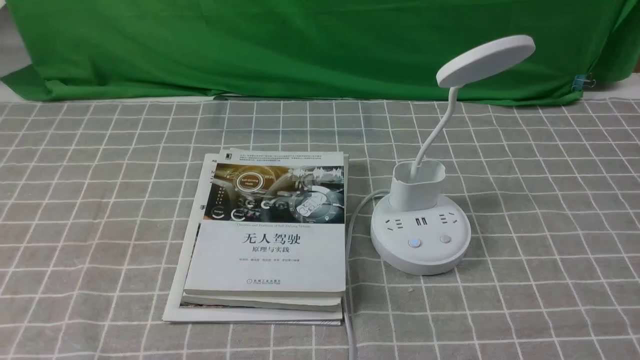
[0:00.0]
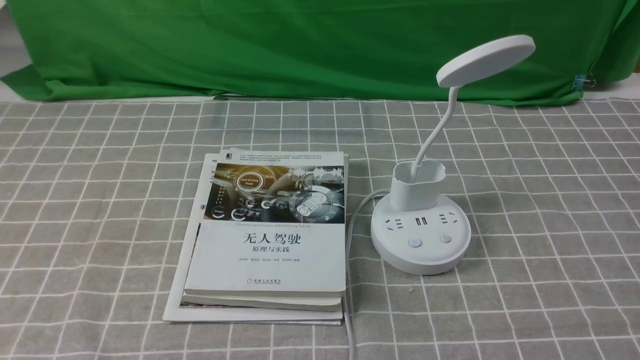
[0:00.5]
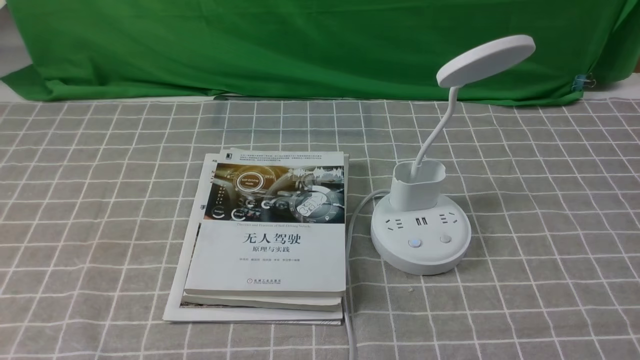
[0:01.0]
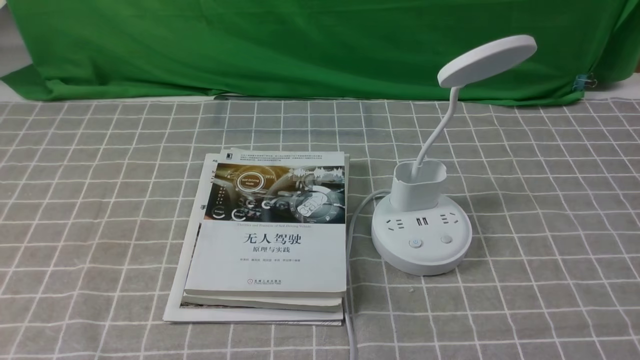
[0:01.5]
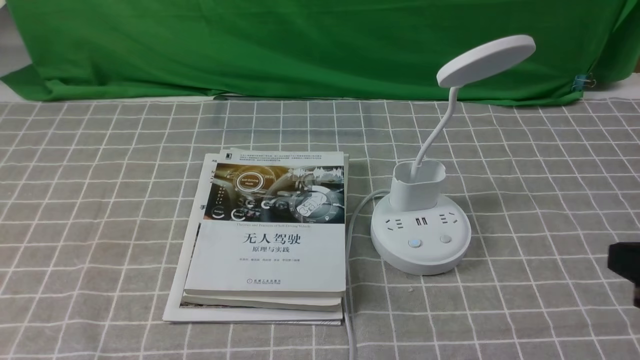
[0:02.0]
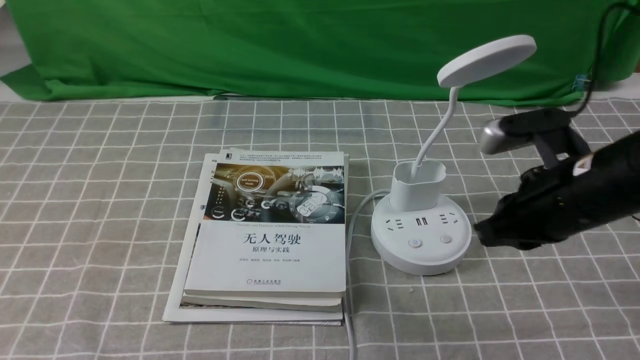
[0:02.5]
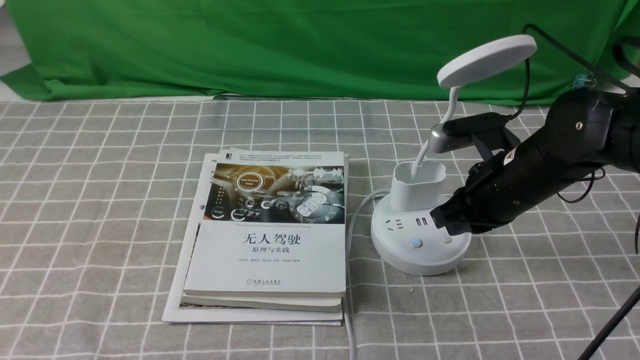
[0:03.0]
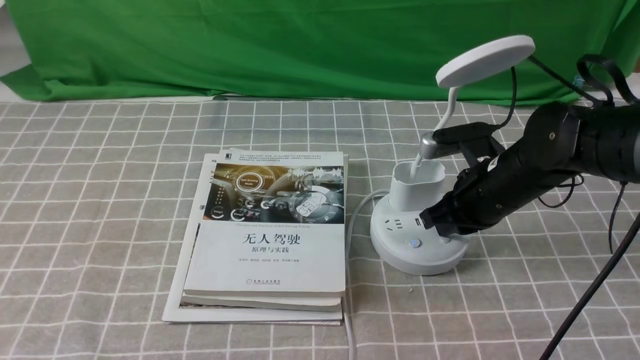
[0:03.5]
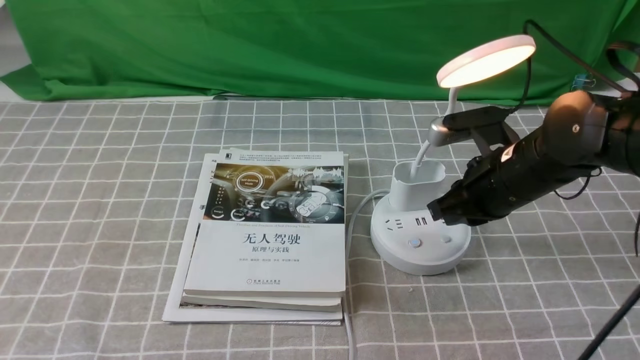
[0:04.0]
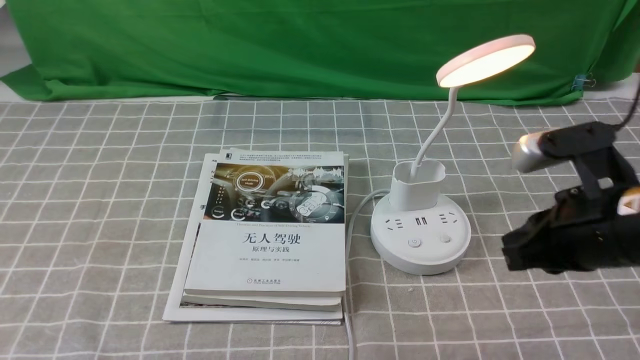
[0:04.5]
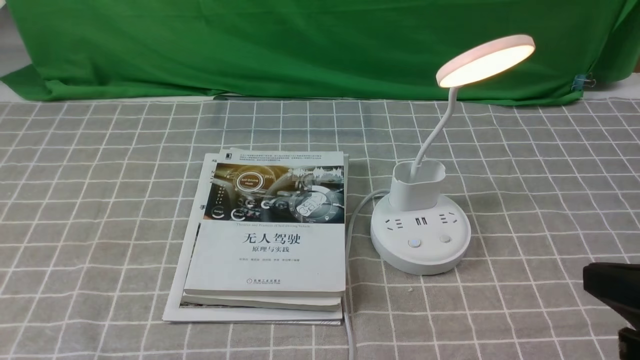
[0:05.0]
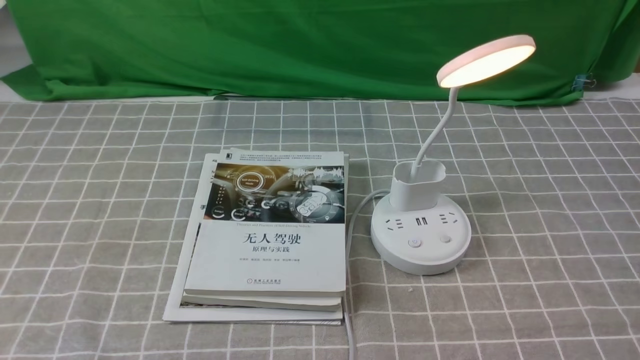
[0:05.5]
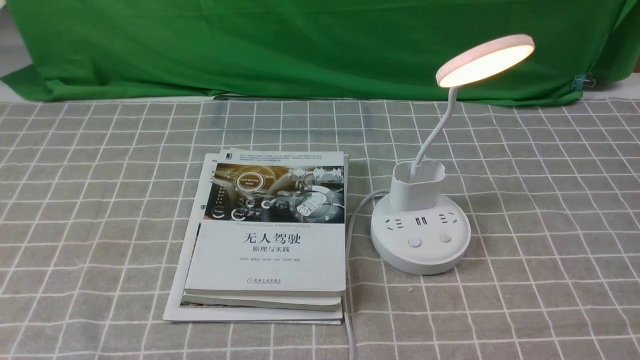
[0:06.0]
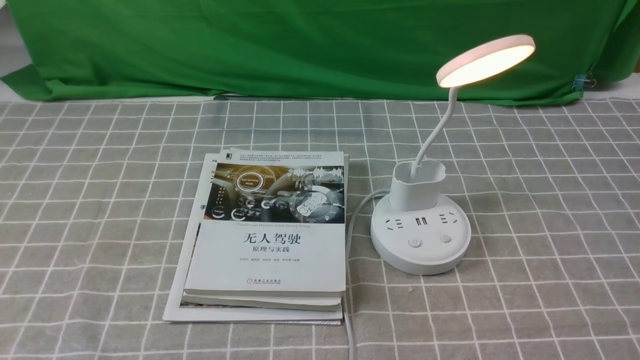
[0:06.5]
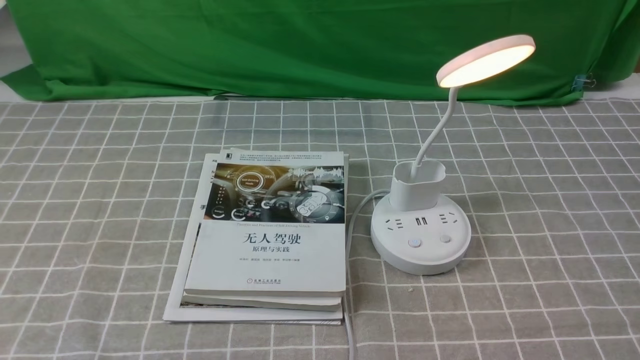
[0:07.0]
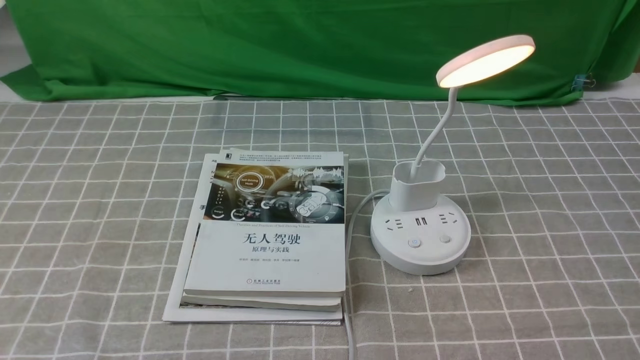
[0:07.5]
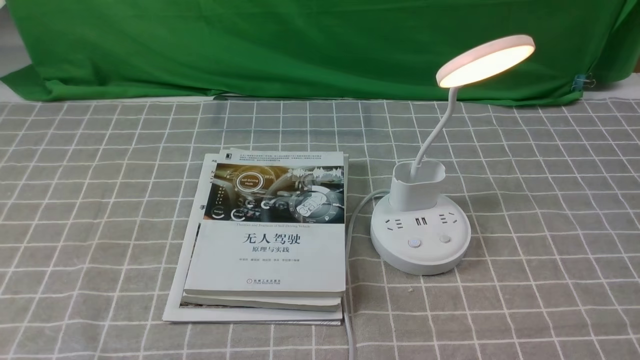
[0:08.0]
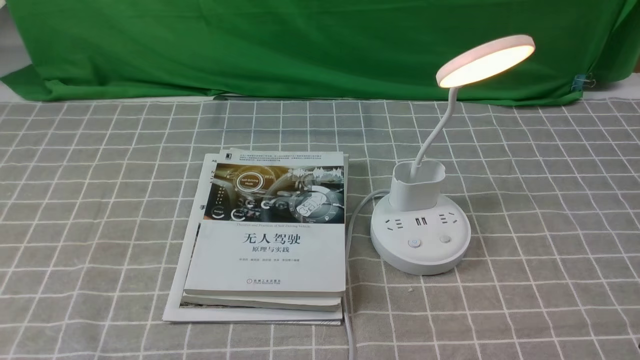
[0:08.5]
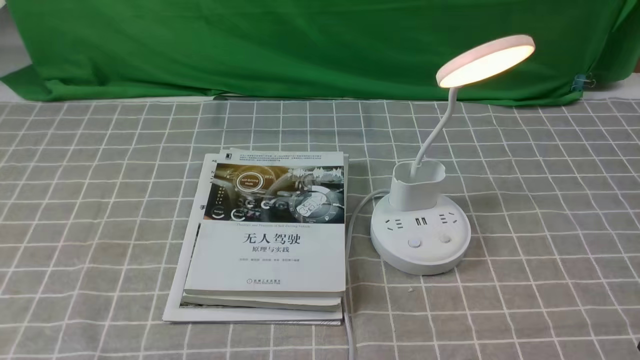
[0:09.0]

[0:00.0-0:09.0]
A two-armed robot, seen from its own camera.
Step, 0:00.0 to 0:03.5: use the right arm to press the button switch on the lamp holder.
0:02.0 to 0:04.5: The right gripper moves forward and to the left, roughly 10 cm.
0:04.5 to 0:07.0: The right gripper travels backward, to the right and downward by approximately 20 cm.
